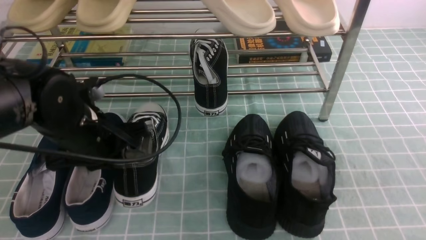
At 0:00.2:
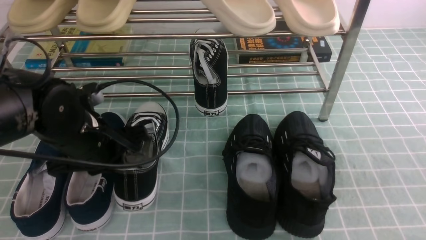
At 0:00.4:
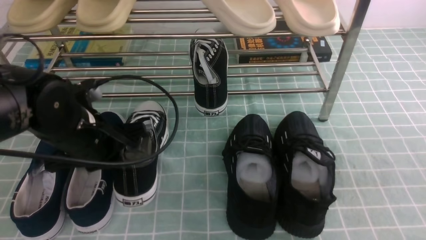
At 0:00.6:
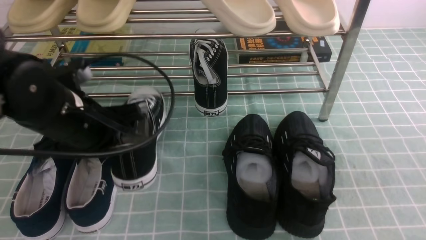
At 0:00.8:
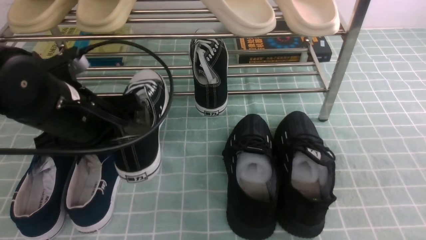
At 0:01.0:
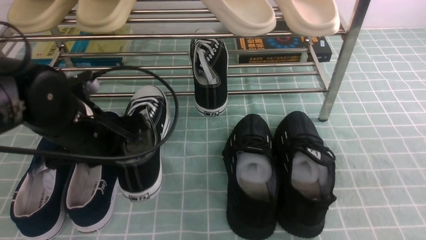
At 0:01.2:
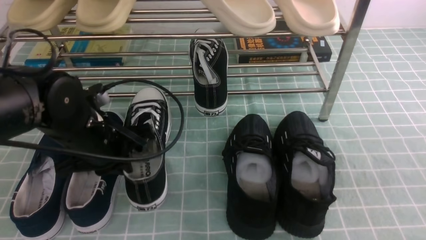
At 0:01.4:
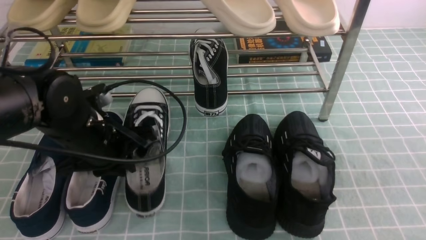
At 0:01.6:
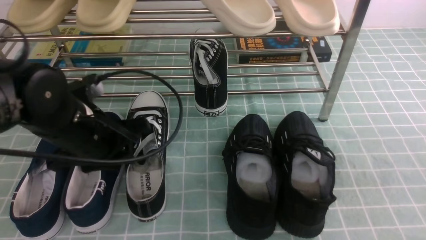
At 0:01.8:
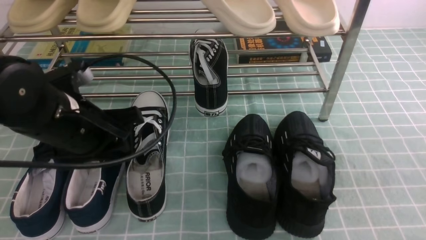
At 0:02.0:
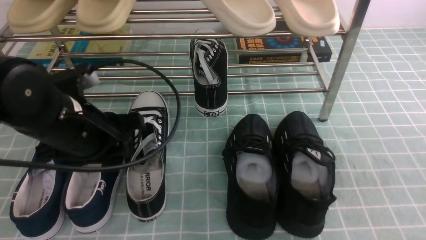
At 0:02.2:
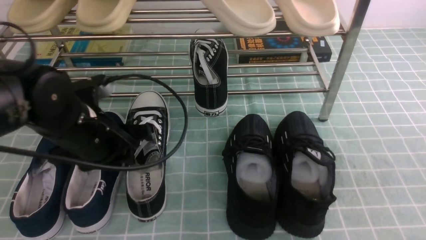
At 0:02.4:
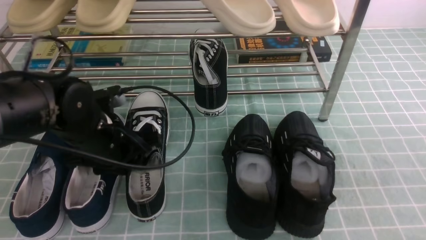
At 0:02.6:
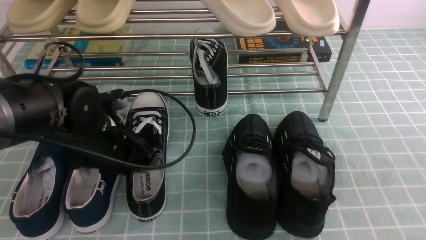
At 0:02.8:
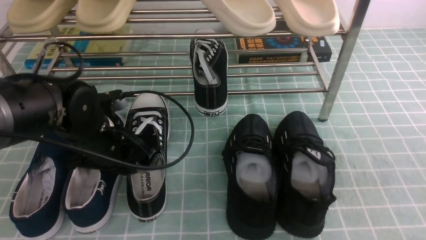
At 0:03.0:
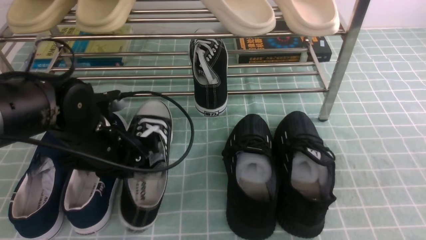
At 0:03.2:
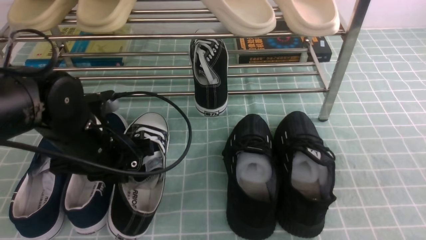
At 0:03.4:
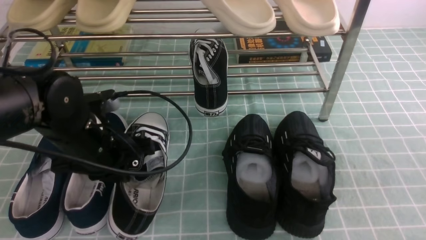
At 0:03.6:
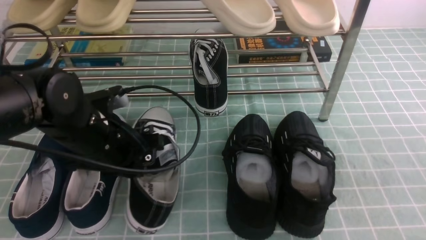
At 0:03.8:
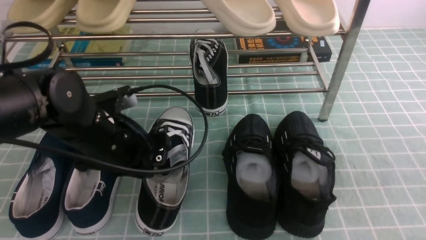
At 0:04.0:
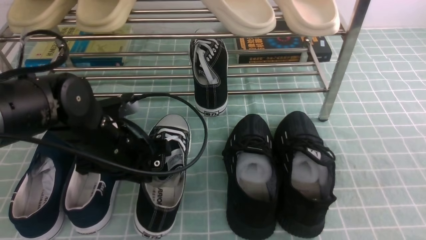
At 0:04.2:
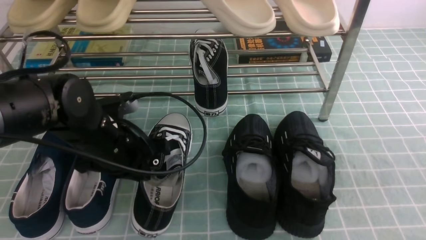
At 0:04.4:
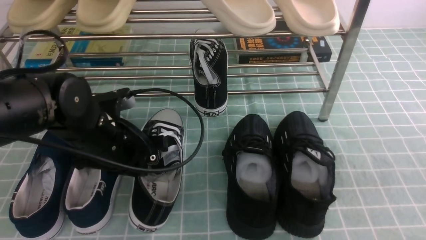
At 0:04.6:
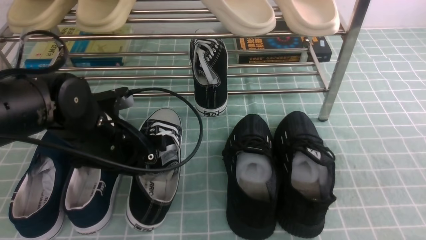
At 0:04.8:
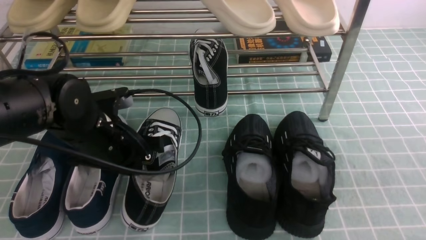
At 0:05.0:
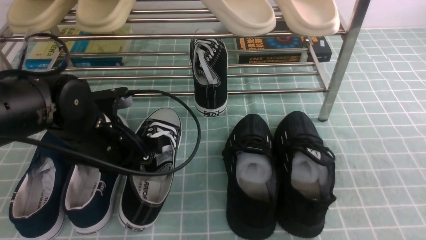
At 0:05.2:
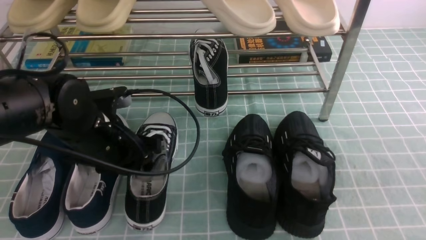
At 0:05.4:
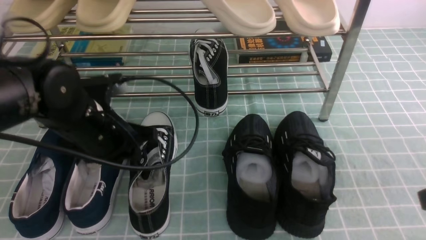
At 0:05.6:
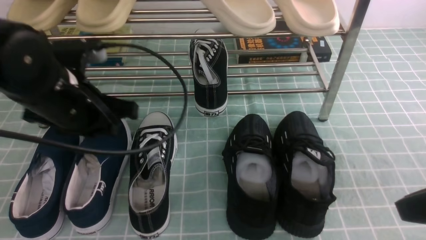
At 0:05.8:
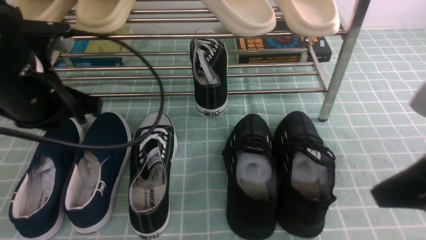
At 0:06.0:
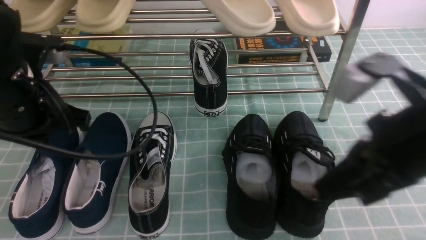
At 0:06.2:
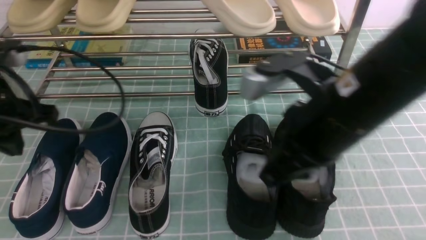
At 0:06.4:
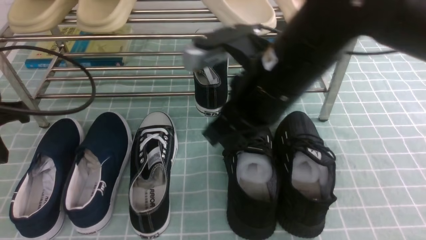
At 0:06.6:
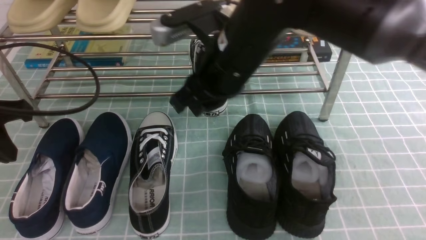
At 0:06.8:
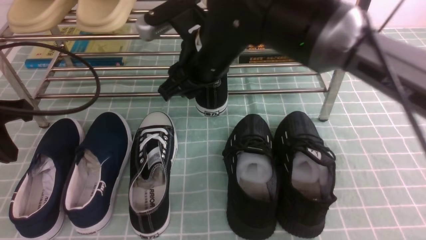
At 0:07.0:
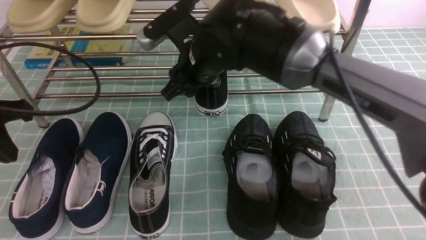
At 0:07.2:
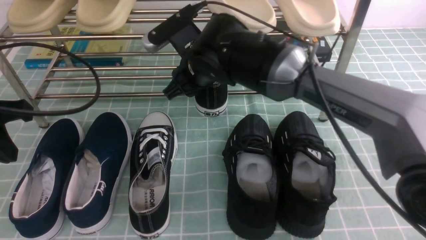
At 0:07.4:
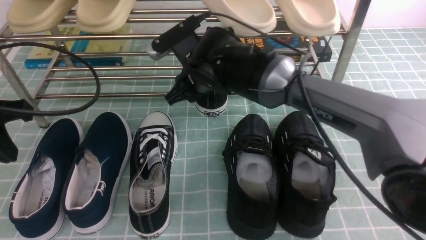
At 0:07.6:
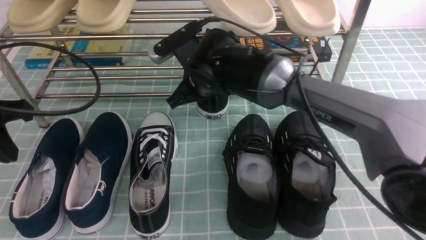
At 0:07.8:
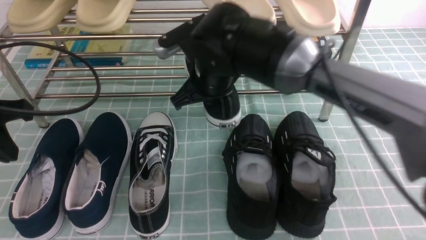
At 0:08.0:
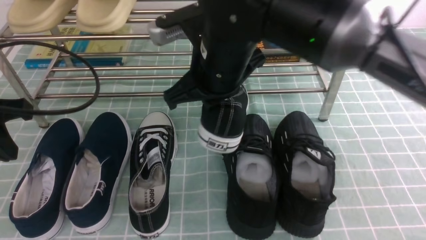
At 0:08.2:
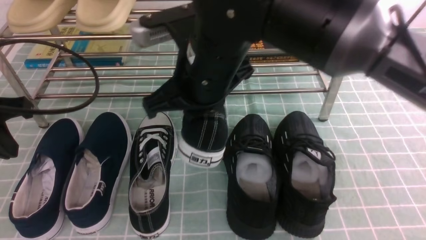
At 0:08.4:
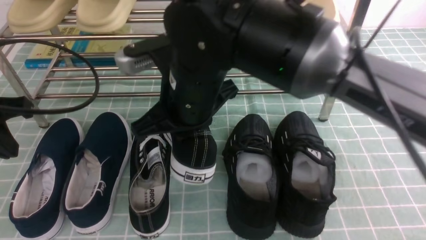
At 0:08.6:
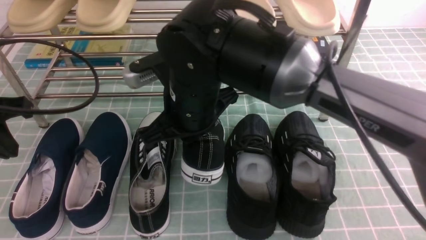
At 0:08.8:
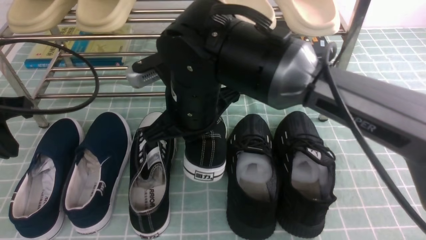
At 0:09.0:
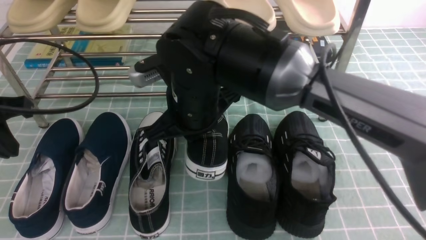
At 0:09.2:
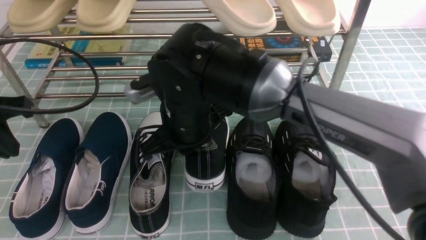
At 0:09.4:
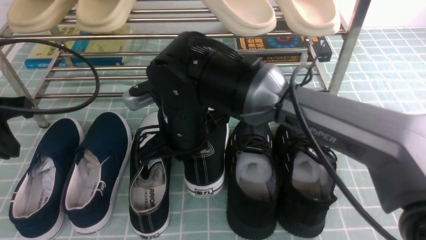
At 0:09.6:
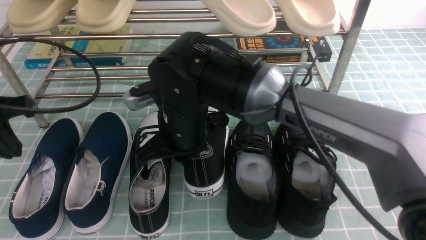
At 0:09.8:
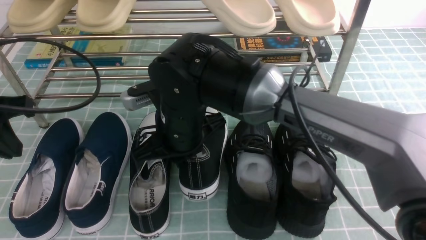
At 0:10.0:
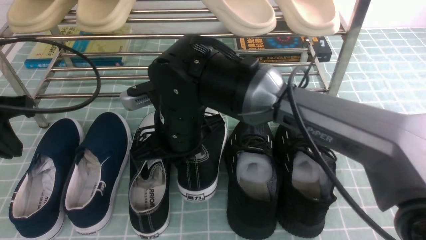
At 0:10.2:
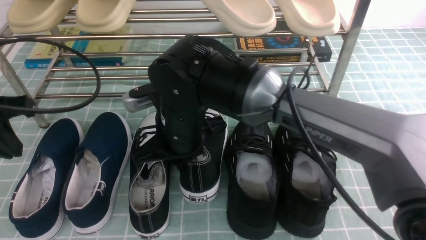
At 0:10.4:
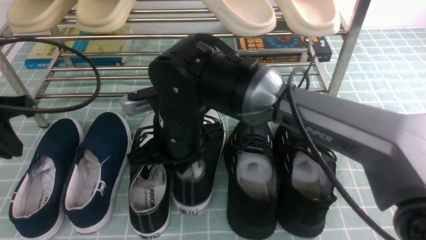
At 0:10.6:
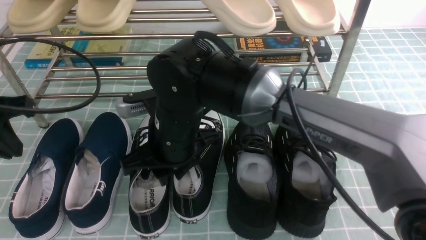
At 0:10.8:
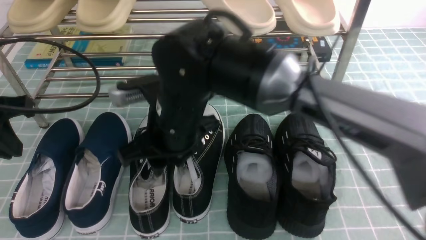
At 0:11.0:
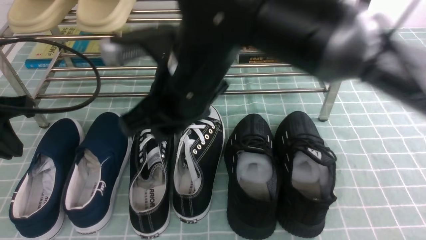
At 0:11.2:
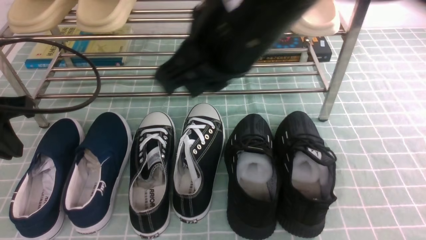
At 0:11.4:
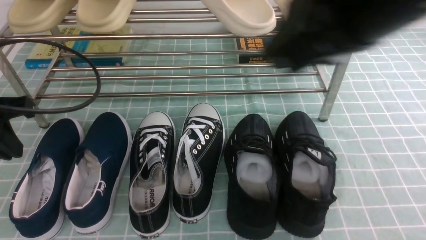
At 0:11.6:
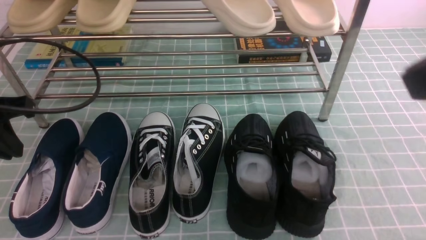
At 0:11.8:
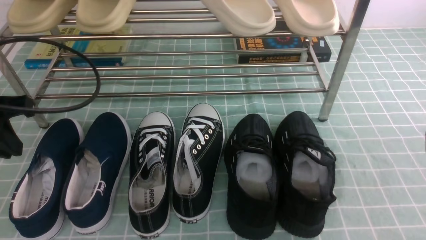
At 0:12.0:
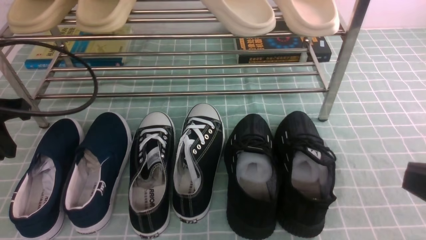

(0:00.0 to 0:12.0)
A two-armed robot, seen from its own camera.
Step, 0:00.0 - 0:05.6: Use your left arm to remove the clamped shoe from the shoe rack and put it down.
Step, 0:05.8 - 0:07.6: use the right arm to clamp a shoe in the middle of the shoe rack.
Step, 0:07.8 - 0:10.8: use the right arm to take out the clamped shoe from the shoe rack and put it down.
0:00.0 - 0:01.6: The left gripper opens up.
0:01.6 - 0:03.0: The left gripper closes its fingers.
0:03.0 - 0:04.4: The grippers stay close to where they were, moving slightly.
0:04.4 - 0:06.0: The right gripper travels to the left by about 10 cm, and closes; the left gripper travels upward and to the left by roughly 15 cm, and opens, then closes again.
0:06.0 - 0:07.6: The left gripper moves to the left, some 5 cm; the right gripper moves forward, to the left and downward, about 30 cm, and opens, then closes again.
0:07.6 - 0:09.0: The right gripper travels backward by roughly 10 cm.
0:09.0 - 0:10.4: The right gripper opens its fingers.
0:10.4 - 0:12.0: The right gripper heads to the right and backward, covering approximately 40 cm, and closes.

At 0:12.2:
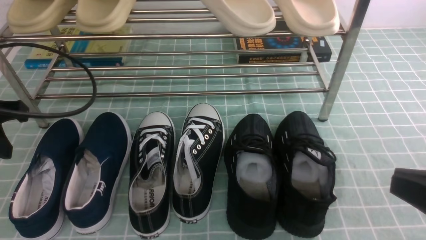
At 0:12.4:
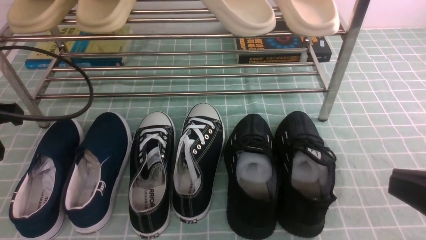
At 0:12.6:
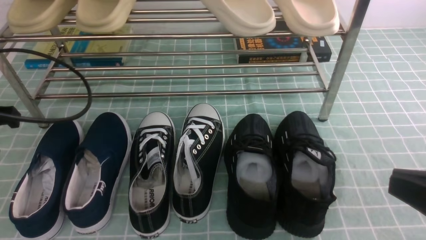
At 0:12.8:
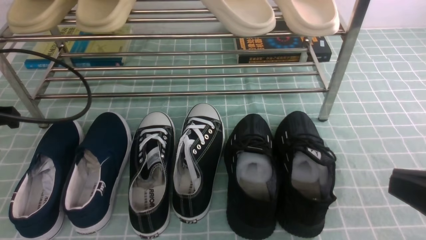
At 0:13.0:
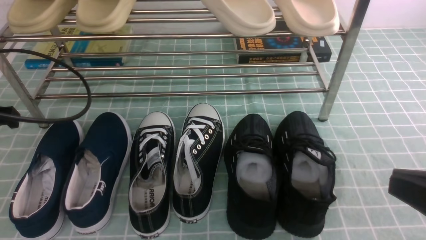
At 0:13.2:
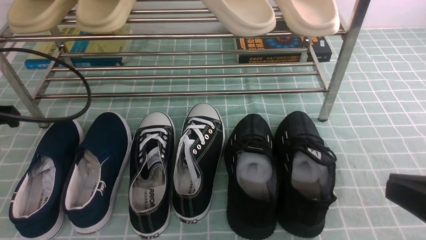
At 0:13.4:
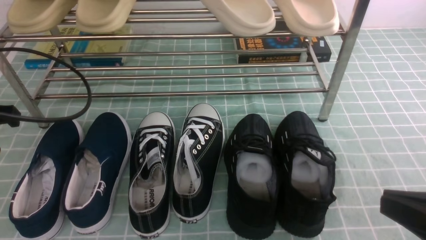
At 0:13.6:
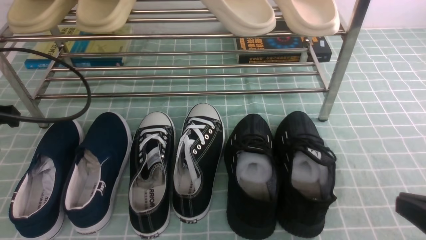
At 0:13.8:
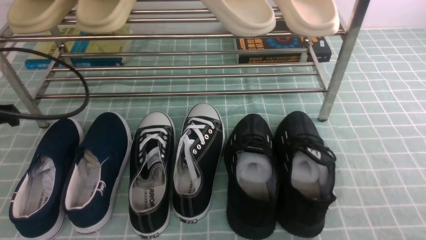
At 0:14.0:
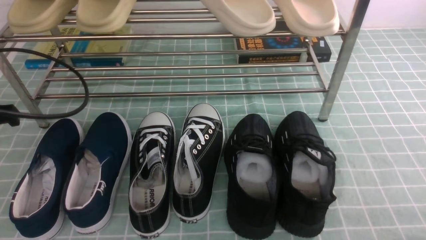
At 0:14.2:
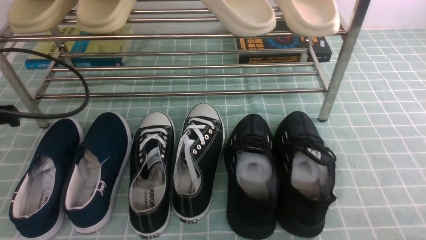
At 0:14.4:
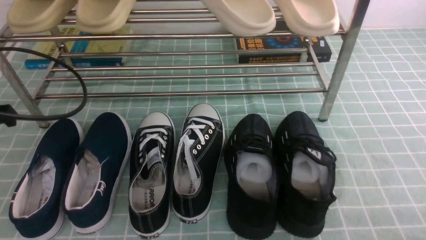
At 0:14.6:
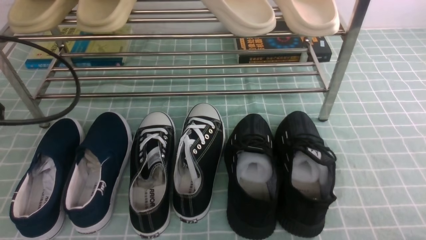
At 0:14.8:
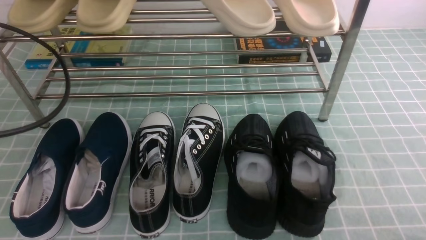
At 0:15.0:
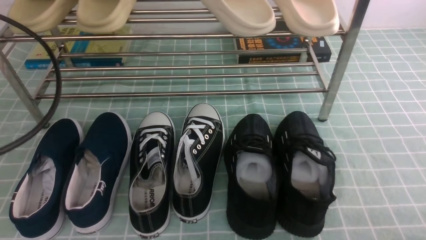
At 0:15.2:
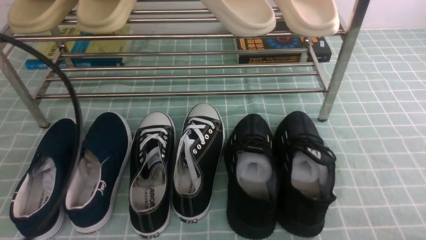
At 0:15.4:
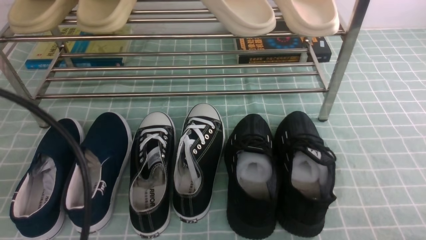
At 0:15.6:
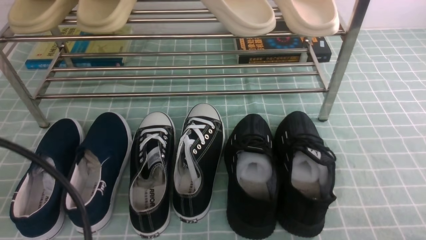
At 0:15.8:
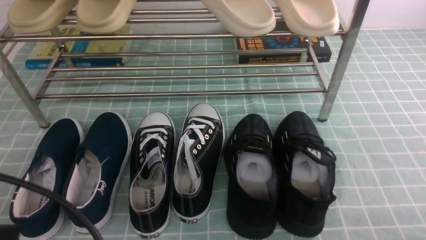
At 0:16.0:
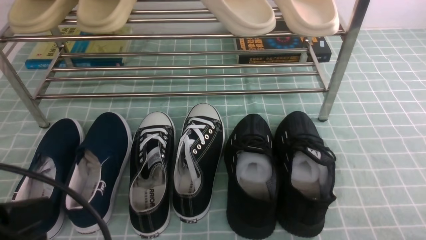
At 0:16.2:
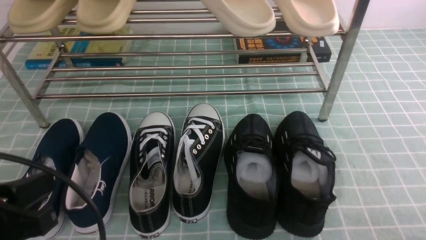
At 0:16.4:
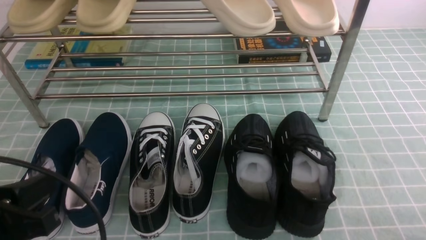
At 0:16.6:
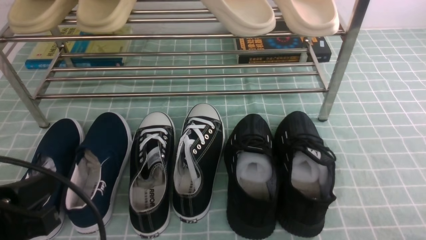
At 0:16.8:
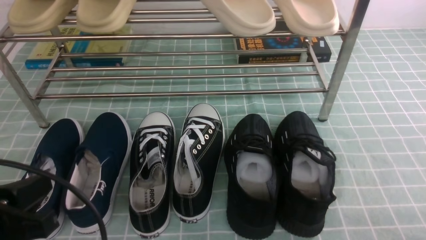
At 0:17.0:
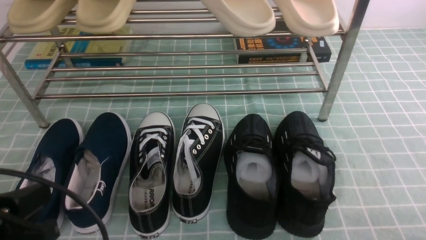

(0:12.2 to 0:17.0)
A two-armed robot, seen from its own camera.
0:12.2 - 0:13.8: The right gripper is displaced downward and to the right by about 10 cm.
0:13.8 - 0:15.4: The left gripper shifts some 15 cm backward, and closes.
0:15.4 - 0:17.0: The left gripper heads downward, covering roughly 15 cm.
